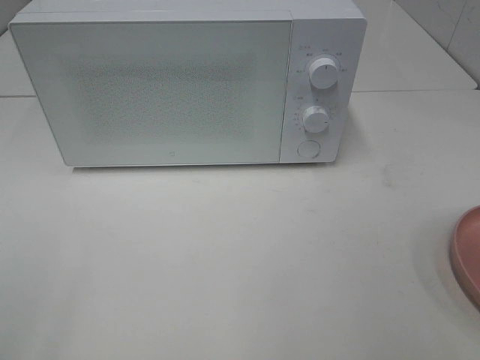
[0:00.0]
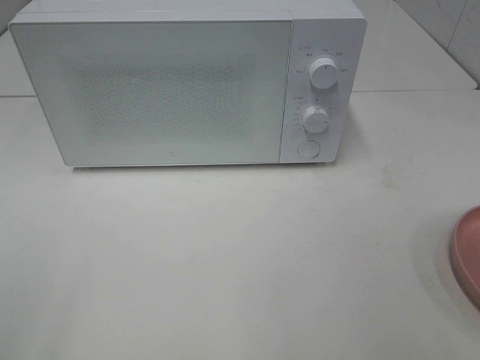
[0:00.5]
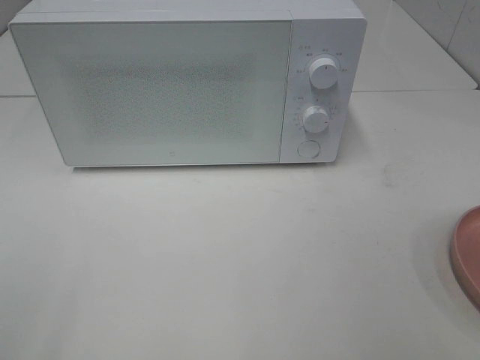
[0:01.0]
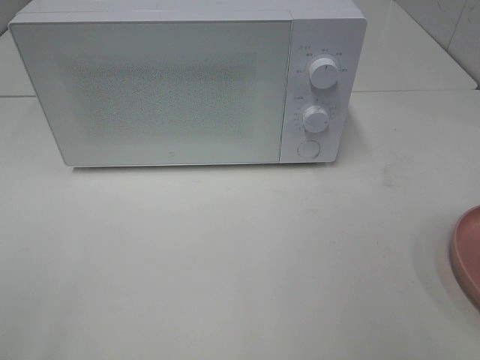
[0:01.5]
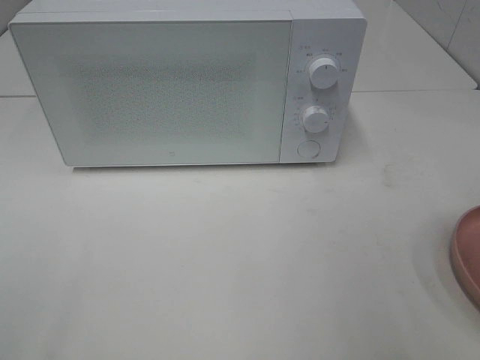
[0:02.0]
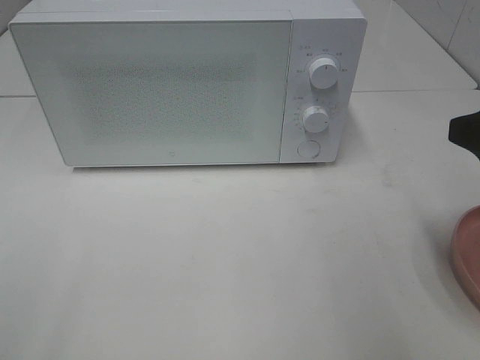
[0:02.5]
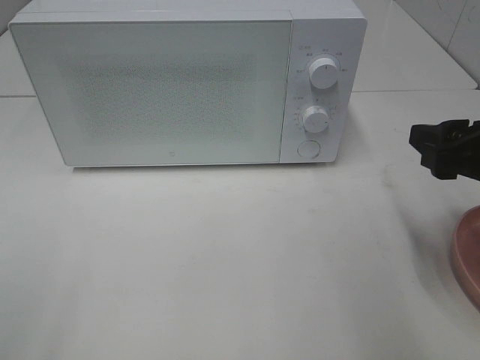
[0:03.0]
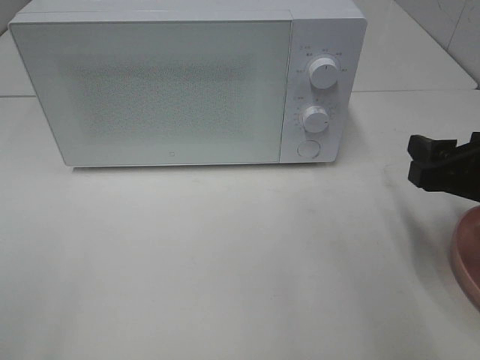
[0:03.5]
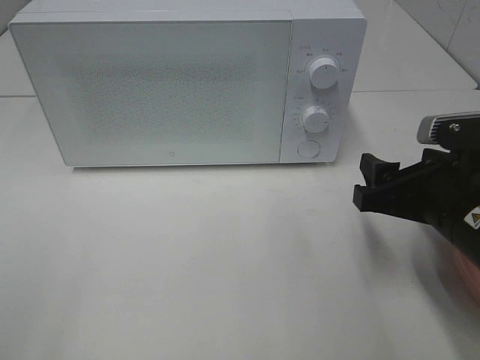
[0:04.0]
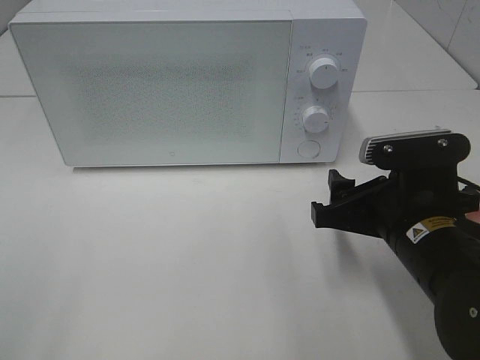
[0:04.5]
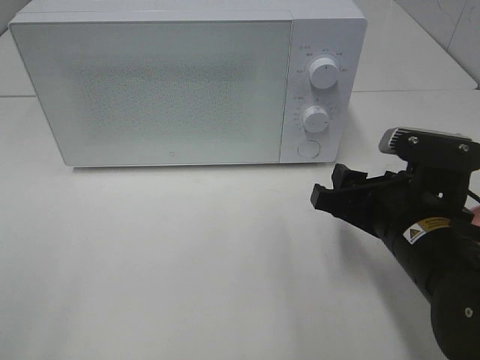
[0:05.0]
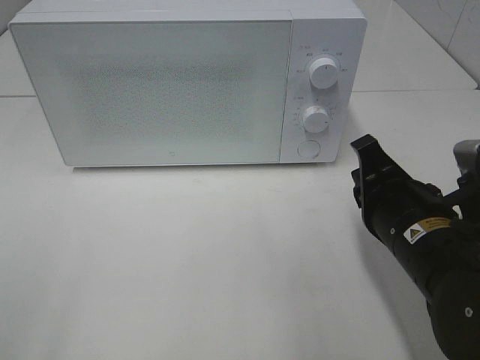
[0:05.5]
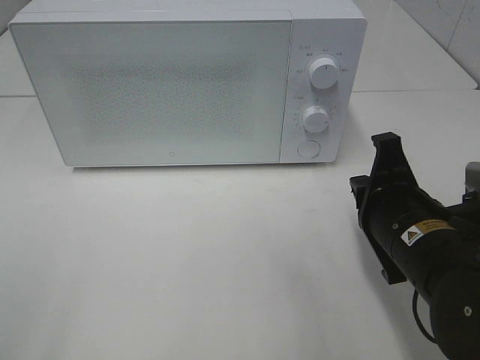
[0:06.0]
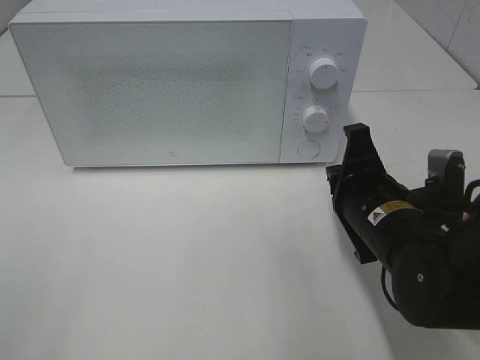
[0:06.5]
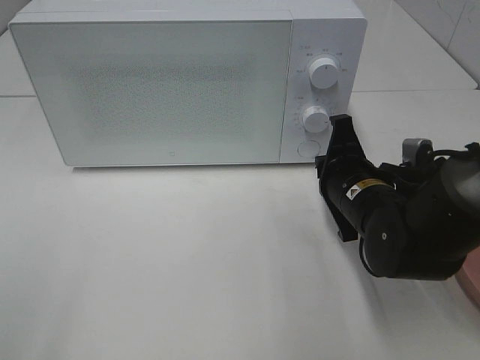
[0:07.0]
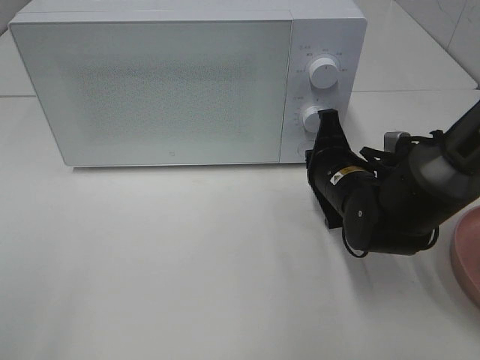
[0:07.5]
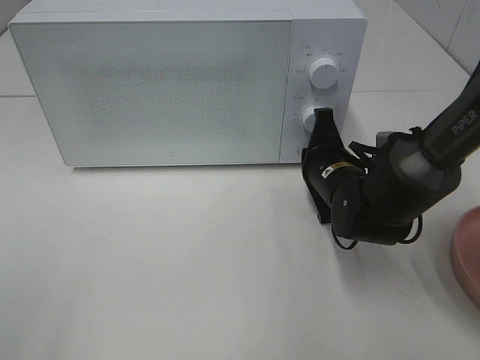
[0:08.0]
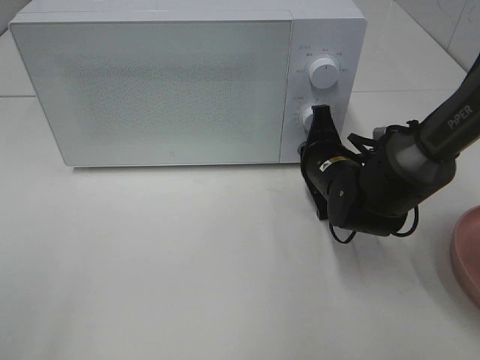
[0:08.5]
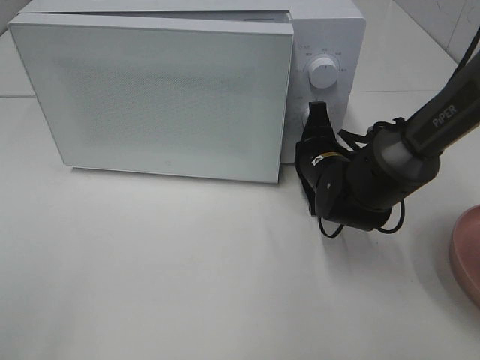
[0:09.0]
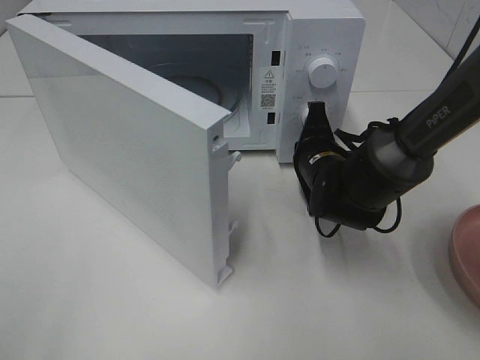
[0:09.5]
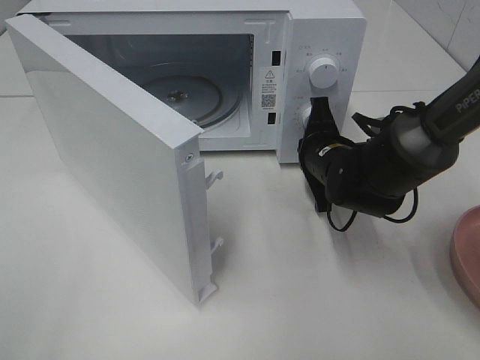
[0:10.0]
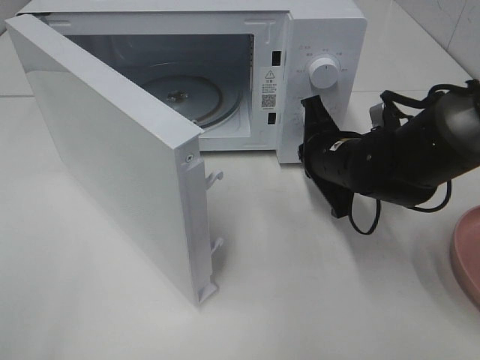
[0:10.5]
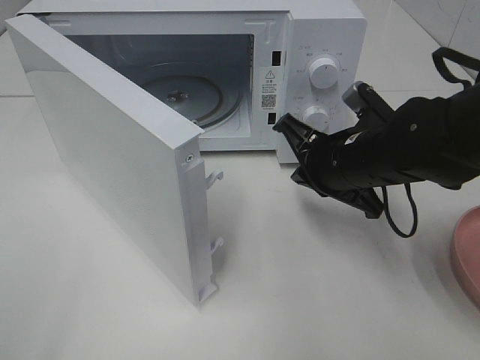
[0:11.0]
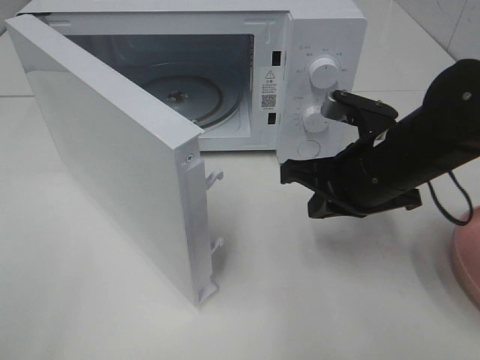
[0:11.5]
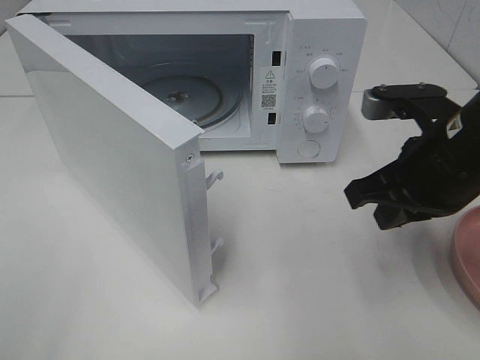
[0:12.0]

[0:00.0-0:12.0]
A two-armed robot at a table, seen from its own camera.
Task of the whole recording: Heat the burger.
Step, 0.0 to 10.0 s: Right hand: press the switch.
2.0 to 4.0 s: The right gripper goes about 15 cm downward, forward and to the left.
4.0 to 6.0 s: The right gripper closes up.
6.0 to 8.0 s: The right gripper goes roughly 15 cm forward and downward.
10.0 to 12.0 s: The right gripper shifts roughly 20 cm backward, upward and to the right.

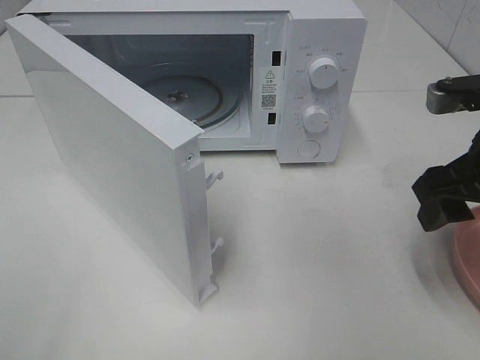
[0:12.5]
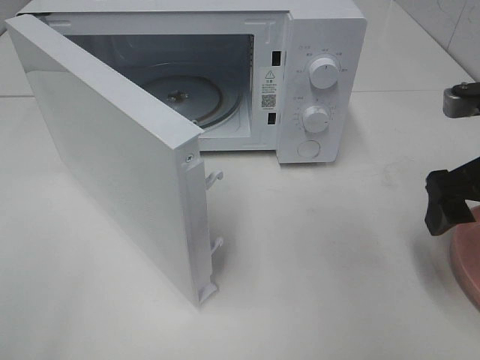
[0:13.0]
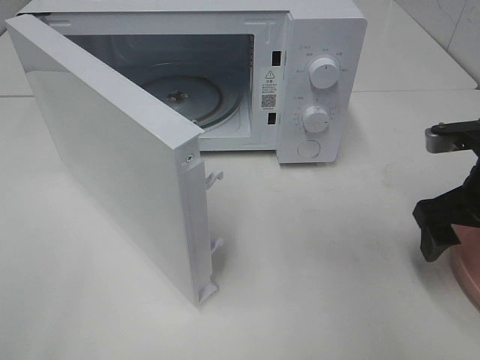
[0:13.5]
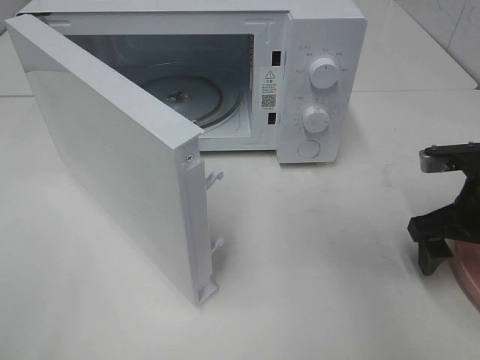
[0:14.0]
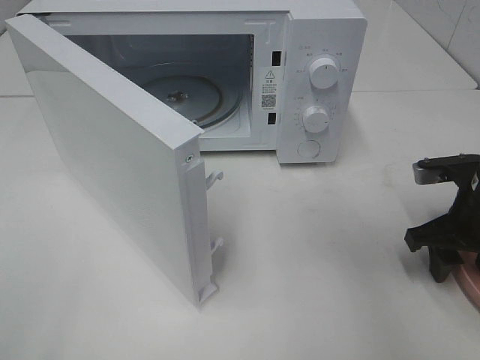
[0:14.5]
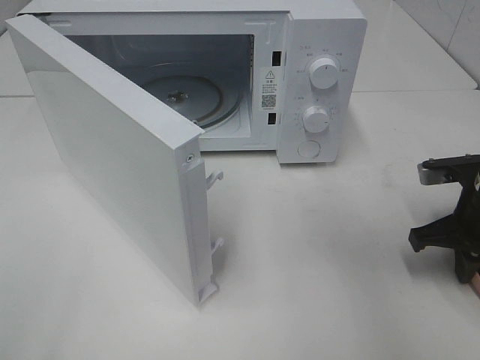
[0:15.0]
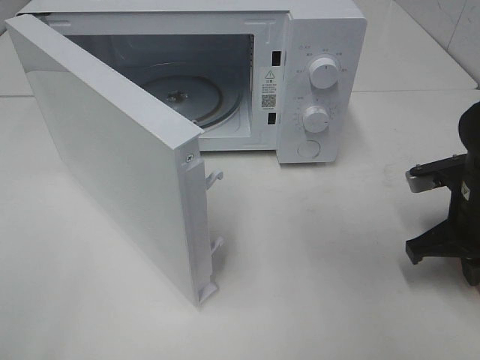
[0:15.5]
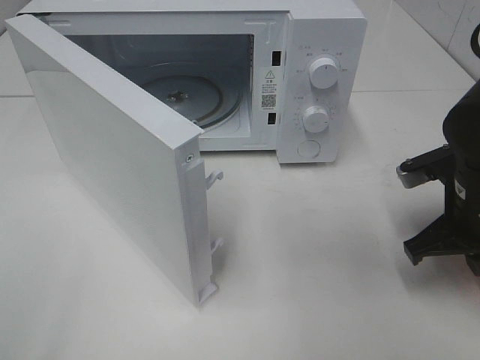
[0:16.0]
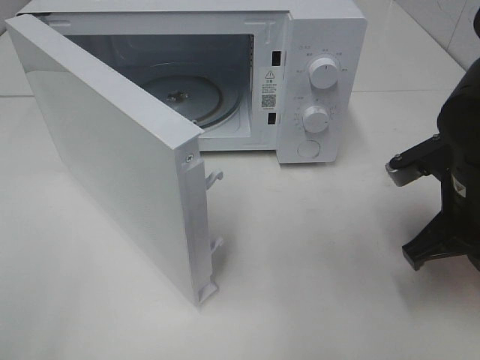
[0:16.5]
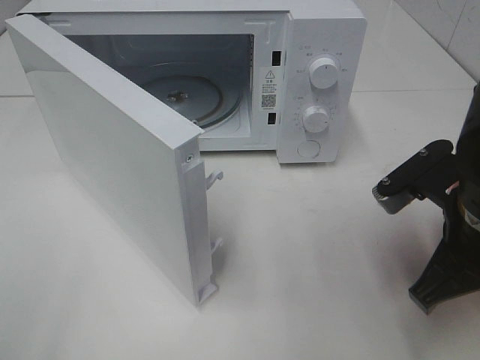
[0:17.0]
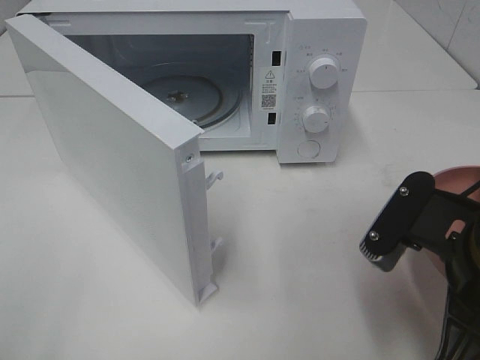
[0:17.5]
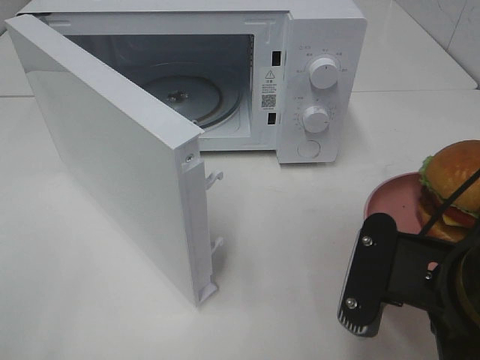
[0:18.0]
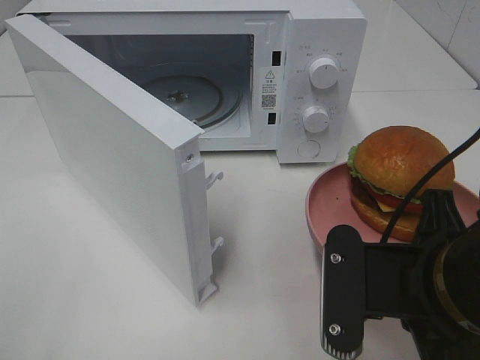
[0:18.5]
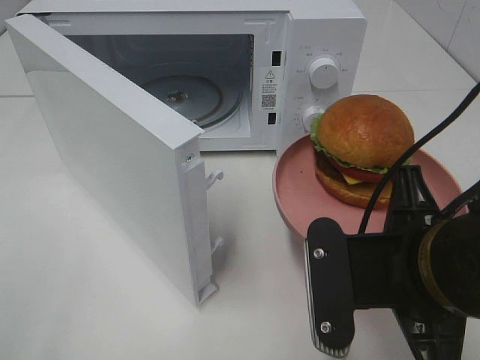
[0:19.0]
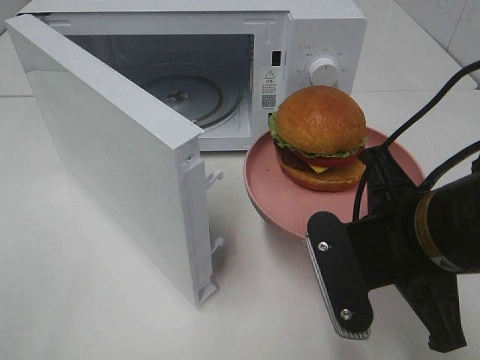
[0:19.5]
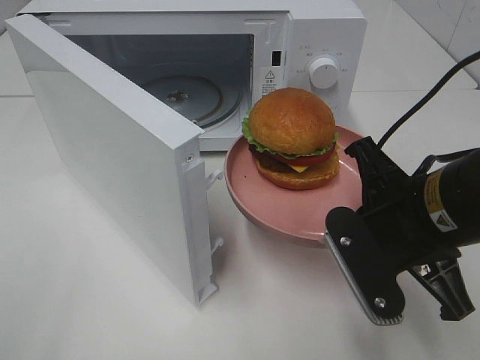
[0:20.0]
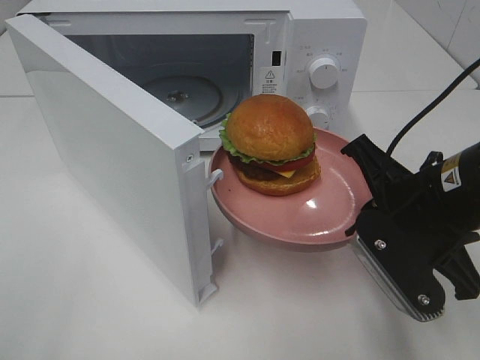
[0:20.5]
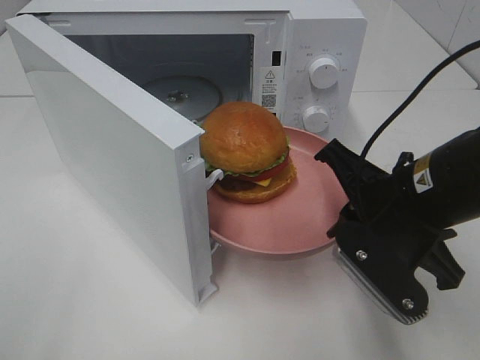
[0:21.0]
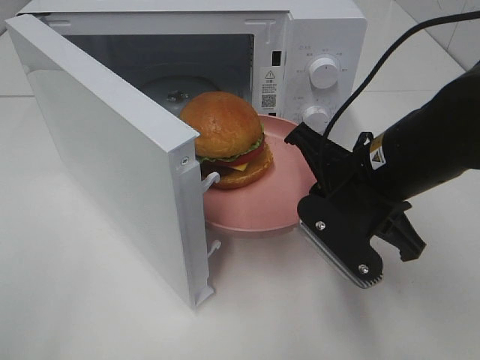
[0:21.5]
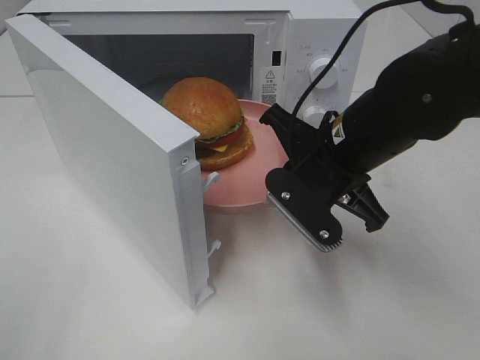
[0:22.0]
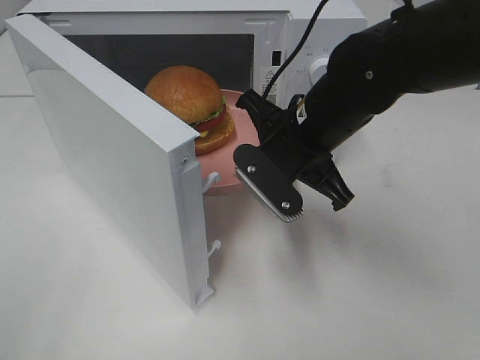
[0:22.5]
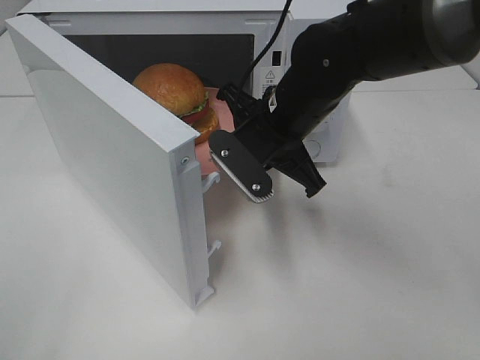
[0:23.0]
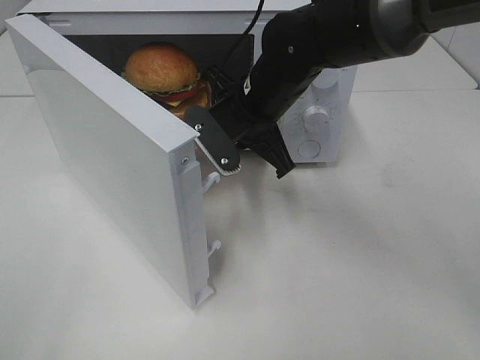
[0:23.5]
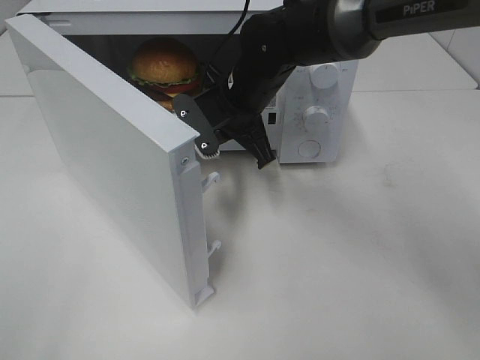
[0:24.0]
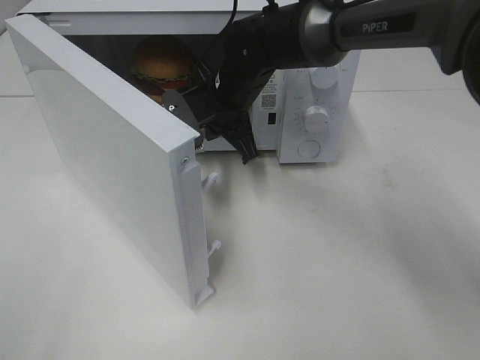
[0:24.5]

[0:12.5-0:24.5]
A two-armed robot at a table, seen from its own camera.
Task of the whole recording: Heat the burger.
Step, 12.5 to 14.5 s: Right hand: grab the plate with the hamburger.
12.5 to 14.5 s: The right gripper travels downward by roughly 10 cm.
14.5 to 16.5 s: The right gripper is displaced to the left and upward by roughly 10 cm, and closes up.
16.5 to 18.5 s: The right gripper is displaced backward and to the left by about 15 cm.
18.5 to 20.5 s: The right gripper is displaced forward by approximately 10 cm.
20.5 to 22.5 s: The right gripper moves forward and to the left, roughly 15 cm.
22.5 to 24.5 s: The right gripper travels forward and to the left by approximately 15 cm.

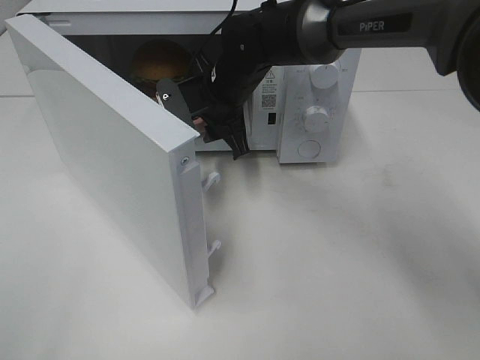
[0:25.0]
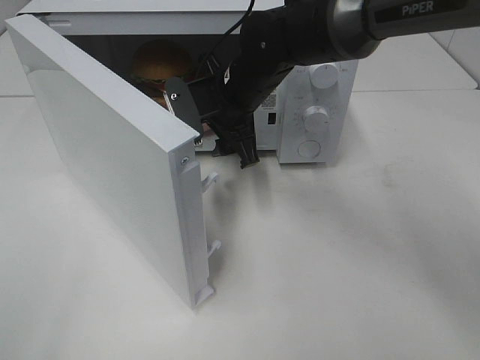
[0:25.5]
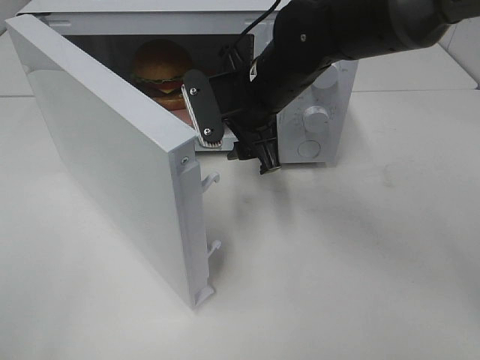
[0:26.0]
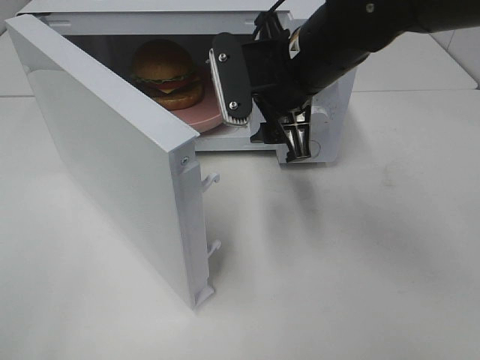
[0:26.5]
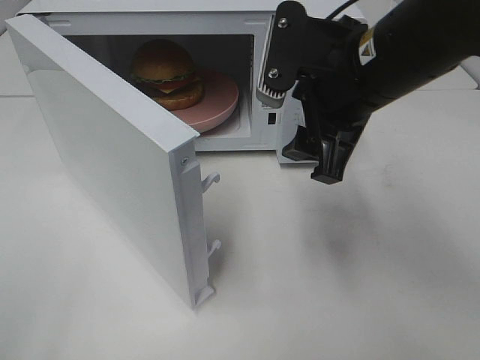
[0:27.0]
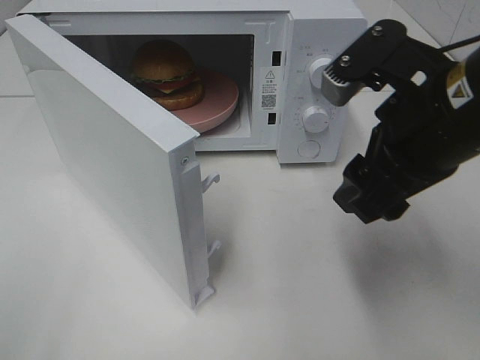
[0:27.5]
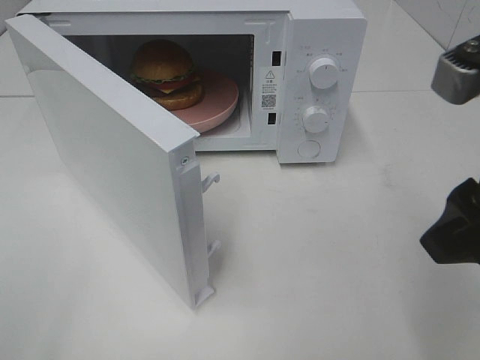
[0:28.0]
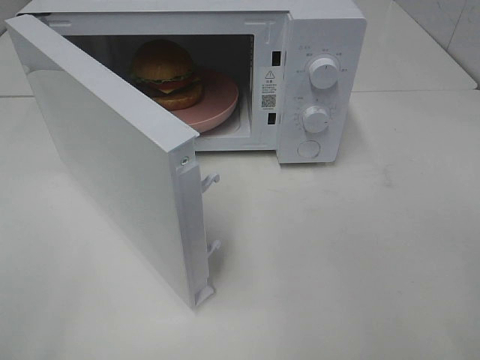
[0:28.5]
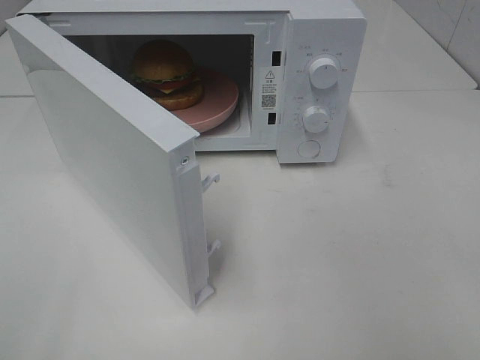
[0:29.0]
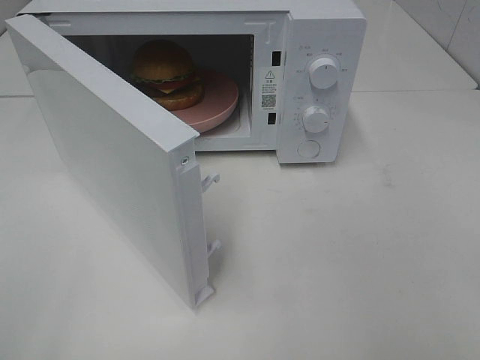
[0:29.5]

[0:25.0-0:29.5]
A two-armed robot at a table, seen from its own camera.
Task of the whole recording: Heat the burger.
25.0 to 27.0 s: The right gripper goes roughly 20 cm backward, to the right and upward.
27.0 to 29.5 s: The right gripper is displaced backward and to the right by roughly 30 cm.
